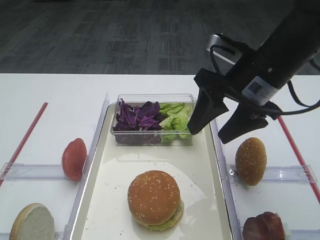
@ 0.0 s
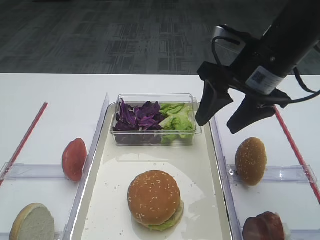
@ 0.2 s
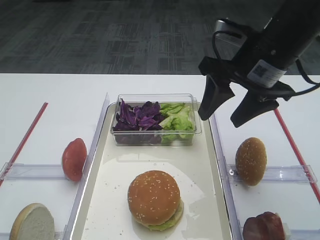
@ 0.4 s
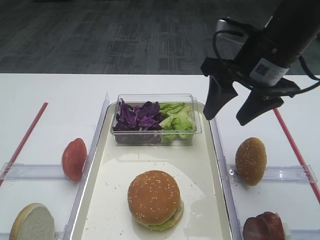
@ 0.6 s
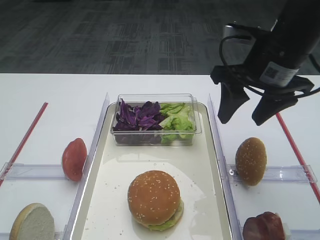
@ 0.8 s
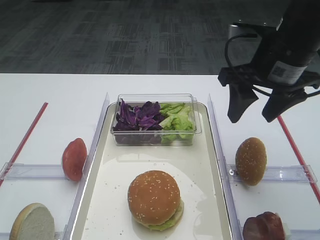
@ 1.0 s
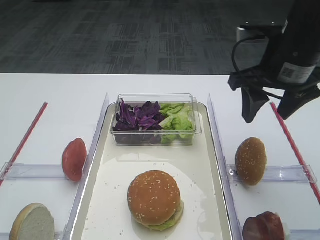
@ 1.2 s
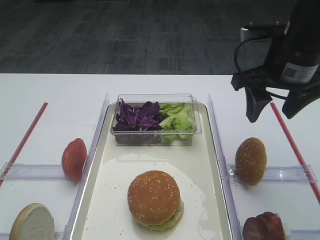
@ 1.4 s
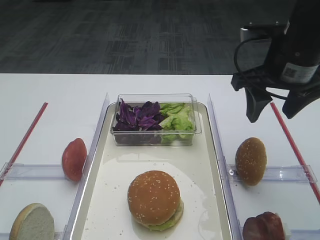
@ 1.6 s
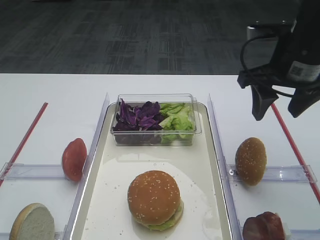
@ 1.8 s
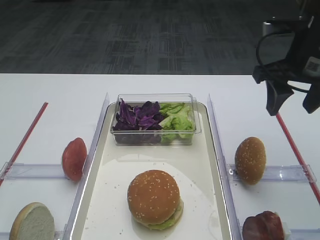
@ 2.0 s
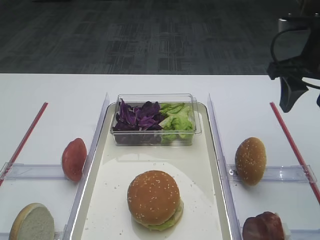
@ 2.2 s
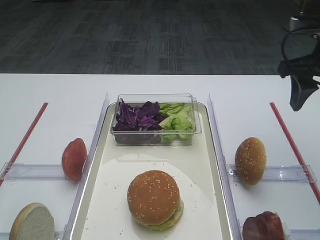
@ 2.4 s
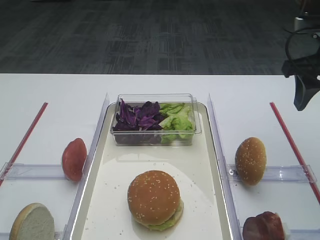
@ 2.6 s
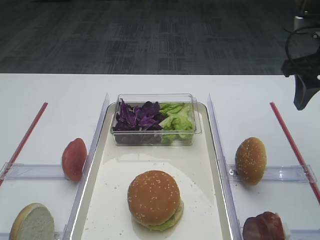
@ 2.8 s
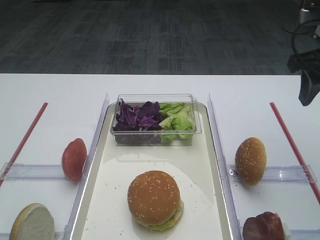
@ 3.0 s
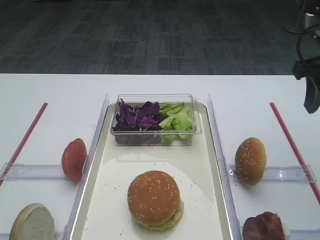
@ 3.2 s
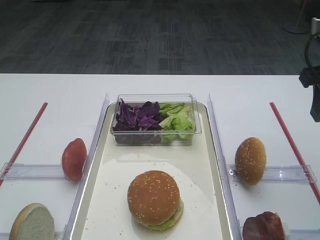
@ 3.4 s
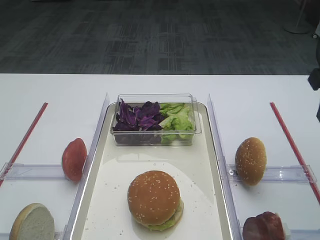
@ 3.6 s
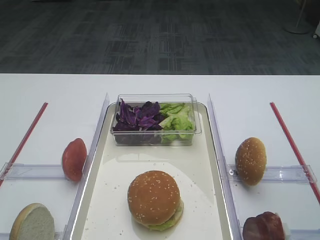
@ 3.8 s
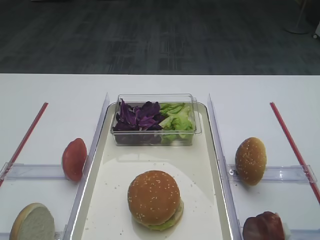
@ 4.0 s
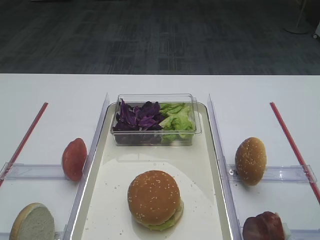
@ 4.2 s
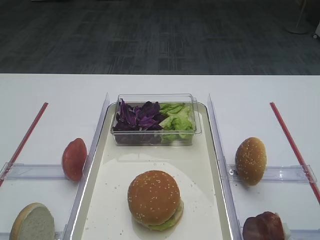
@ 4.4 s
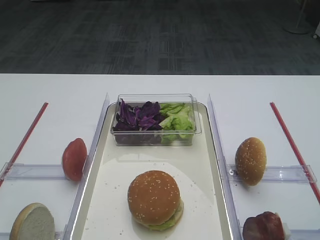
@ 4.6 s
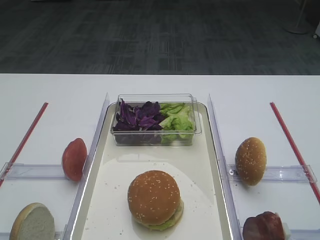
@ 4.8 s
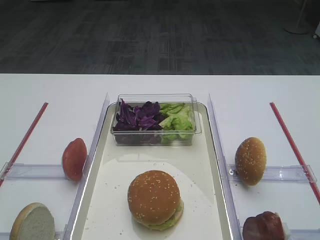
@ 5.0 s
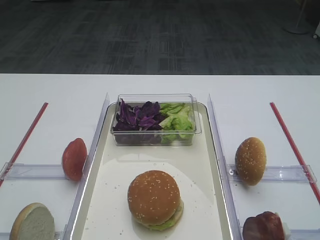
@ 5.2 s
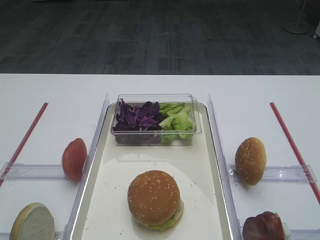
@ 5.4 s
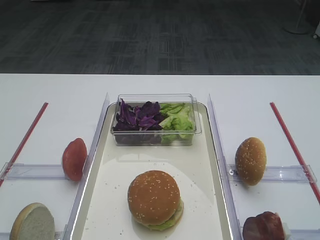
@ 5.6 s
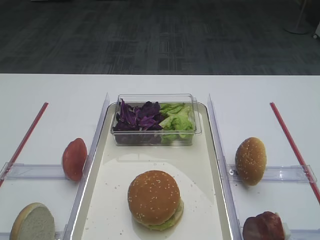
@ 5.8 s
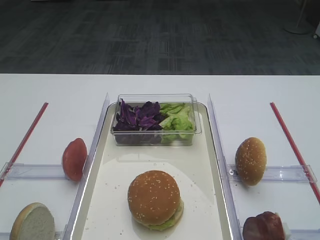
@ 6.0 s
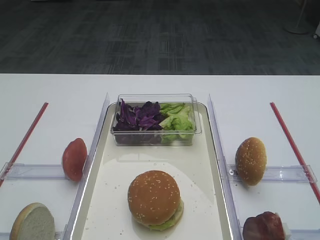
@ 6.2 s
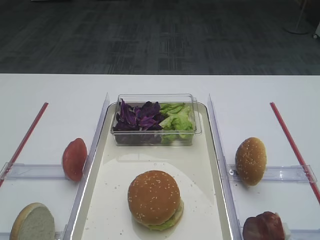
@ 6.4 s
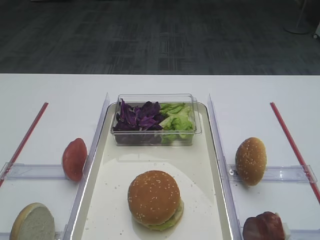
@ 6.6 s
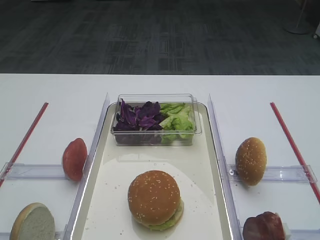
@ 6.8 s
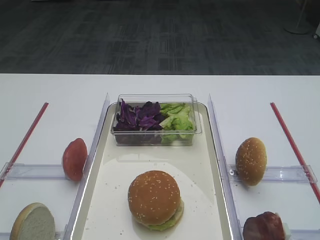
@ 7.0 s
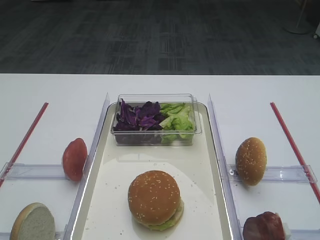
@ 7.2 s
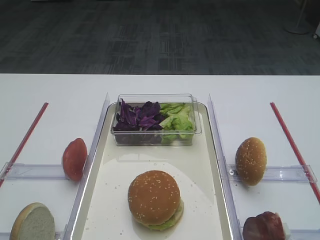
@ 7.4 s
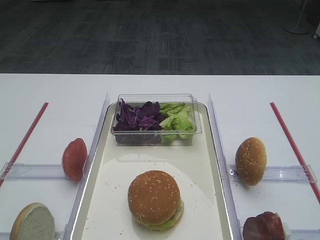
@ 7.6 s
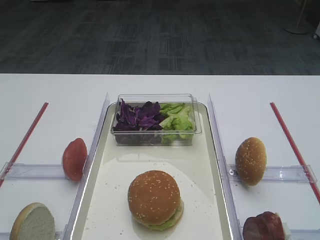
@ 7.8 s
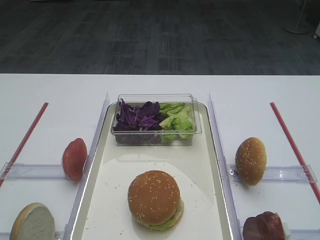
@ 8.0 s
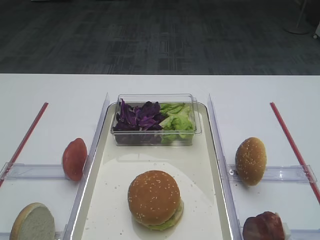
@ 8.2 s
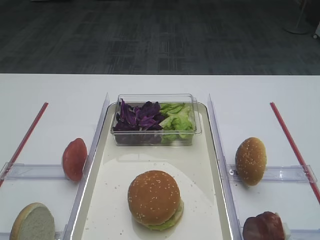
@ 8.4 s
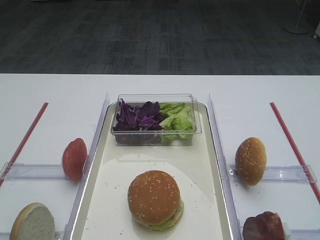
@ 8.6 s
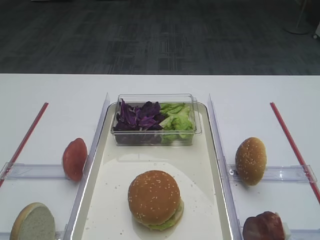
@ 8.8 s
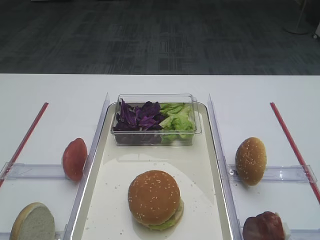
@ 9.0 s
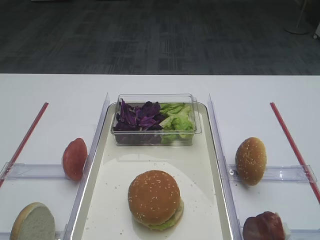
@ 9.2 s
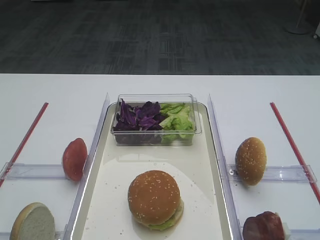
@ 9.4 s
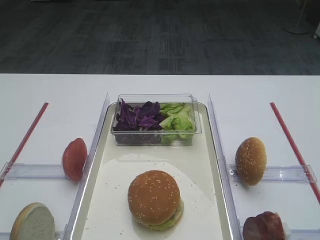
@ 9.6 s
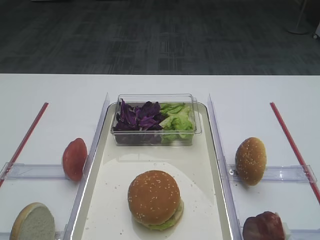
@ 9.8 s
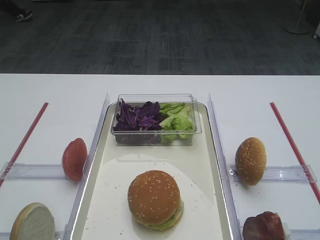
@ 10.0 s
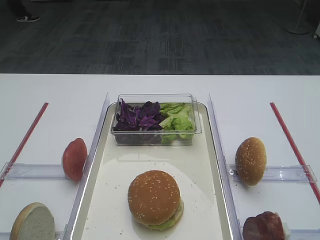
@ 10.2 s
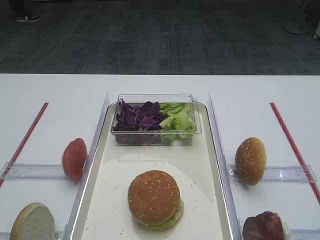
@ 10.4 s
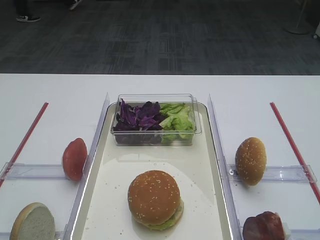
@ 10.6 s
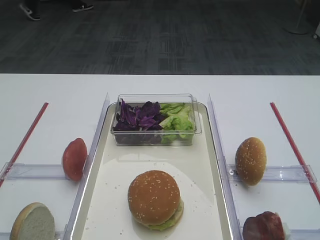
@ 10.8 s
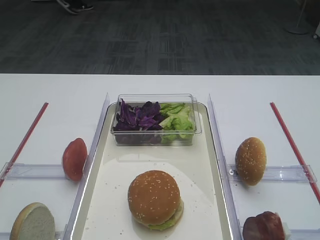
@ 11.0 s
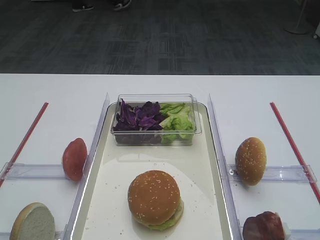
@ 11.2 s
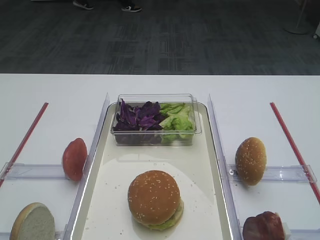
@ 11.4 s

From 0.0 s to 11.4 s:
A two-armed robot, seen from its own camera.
From 1.4 s to 2.8 s: The right gripper travels to the right by approximately 10 cm.
From 2.8 s to 4.2 s: The right gripper travels backward by about 15 cm.
From 7.2 s to 11.4 s: Neither gripper changes place.

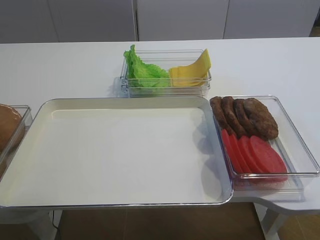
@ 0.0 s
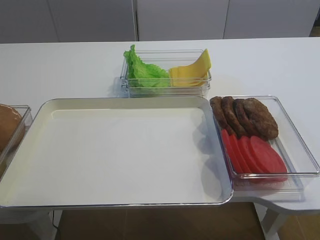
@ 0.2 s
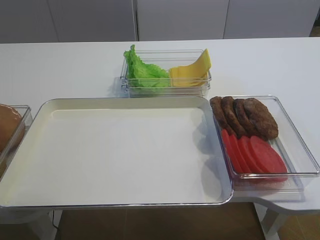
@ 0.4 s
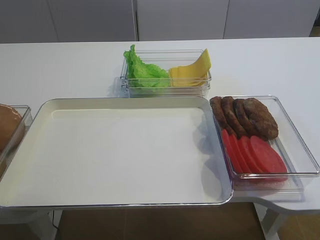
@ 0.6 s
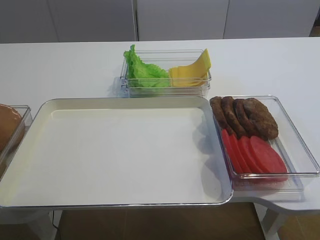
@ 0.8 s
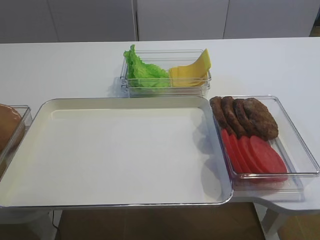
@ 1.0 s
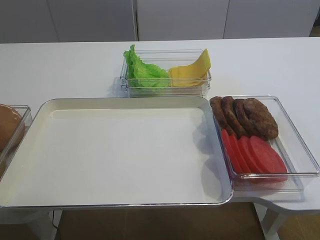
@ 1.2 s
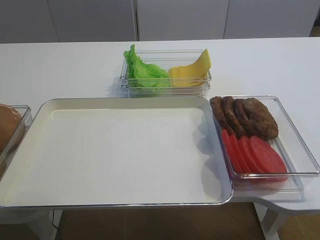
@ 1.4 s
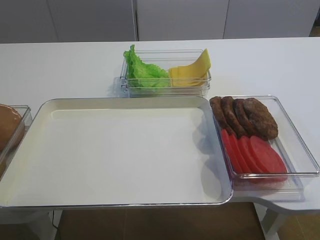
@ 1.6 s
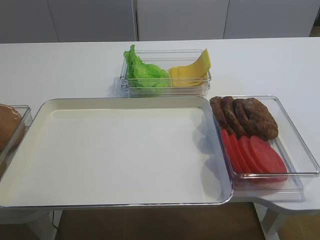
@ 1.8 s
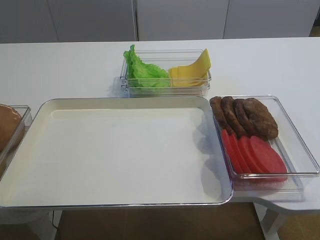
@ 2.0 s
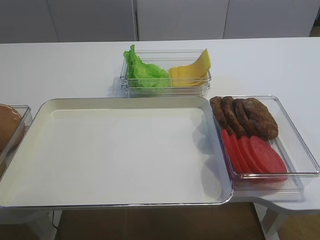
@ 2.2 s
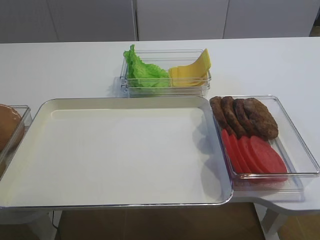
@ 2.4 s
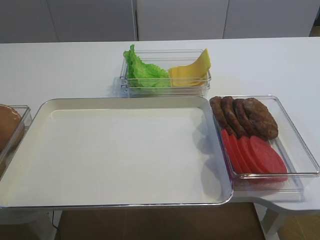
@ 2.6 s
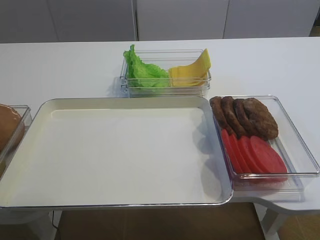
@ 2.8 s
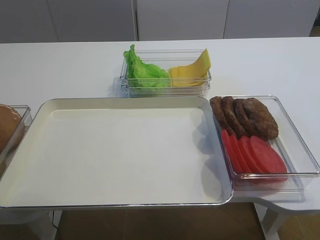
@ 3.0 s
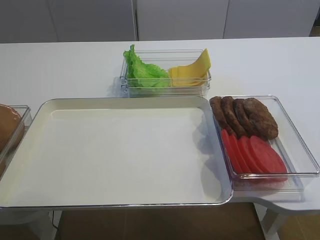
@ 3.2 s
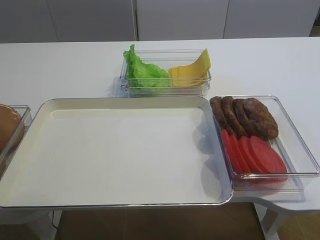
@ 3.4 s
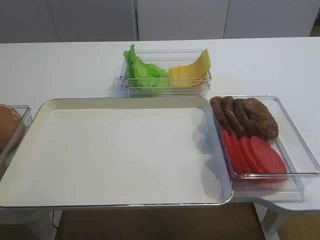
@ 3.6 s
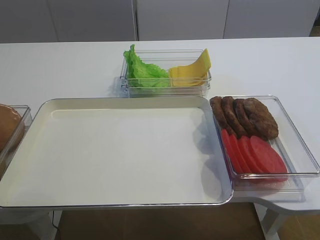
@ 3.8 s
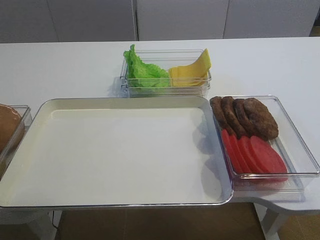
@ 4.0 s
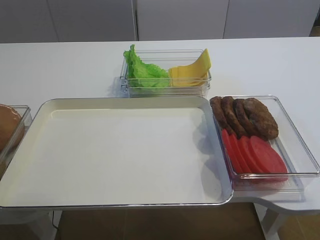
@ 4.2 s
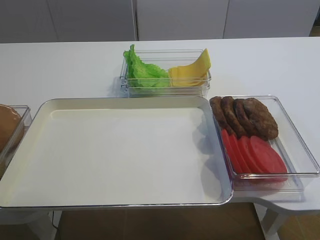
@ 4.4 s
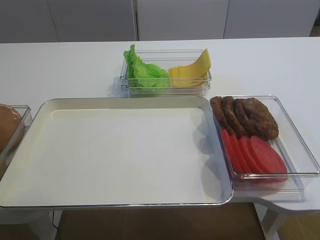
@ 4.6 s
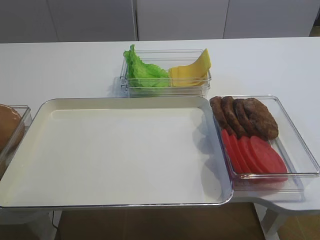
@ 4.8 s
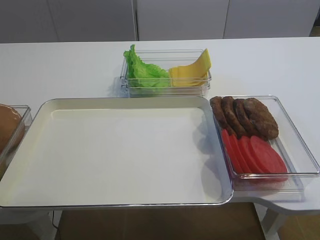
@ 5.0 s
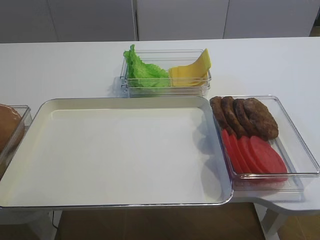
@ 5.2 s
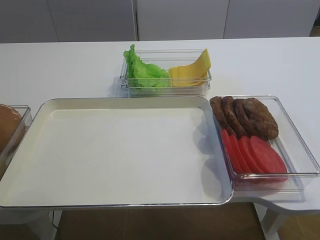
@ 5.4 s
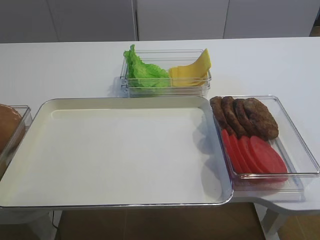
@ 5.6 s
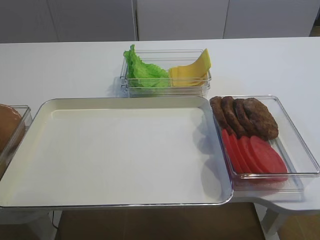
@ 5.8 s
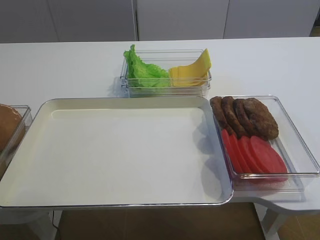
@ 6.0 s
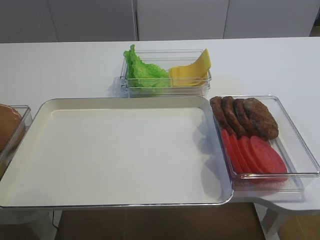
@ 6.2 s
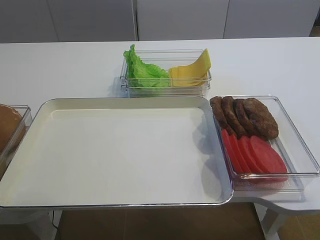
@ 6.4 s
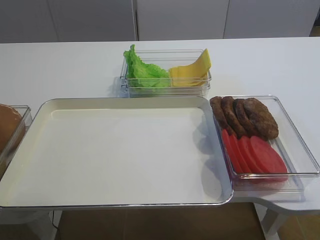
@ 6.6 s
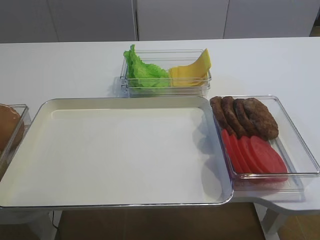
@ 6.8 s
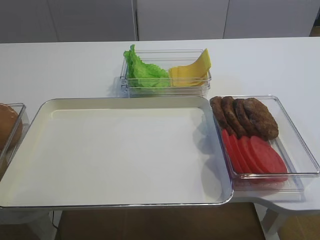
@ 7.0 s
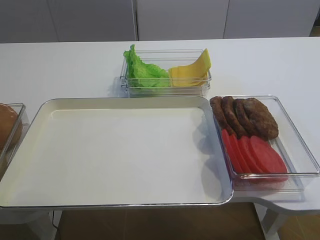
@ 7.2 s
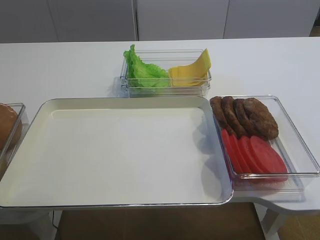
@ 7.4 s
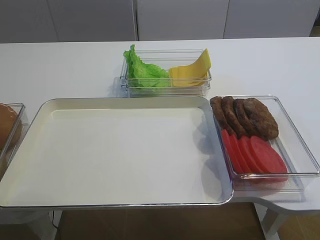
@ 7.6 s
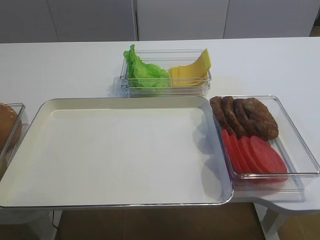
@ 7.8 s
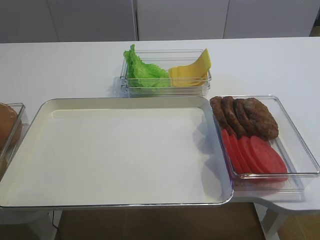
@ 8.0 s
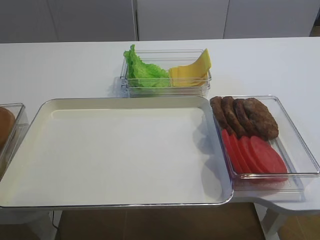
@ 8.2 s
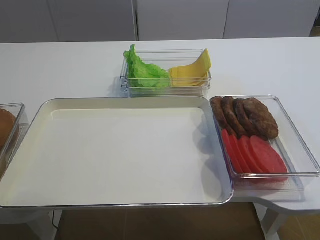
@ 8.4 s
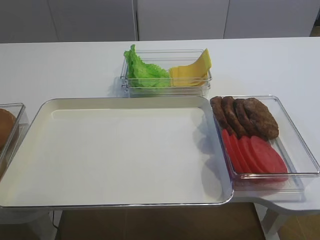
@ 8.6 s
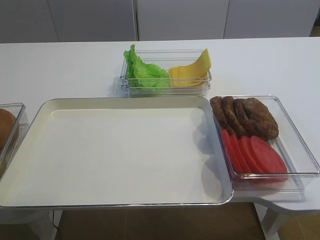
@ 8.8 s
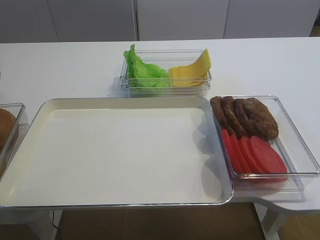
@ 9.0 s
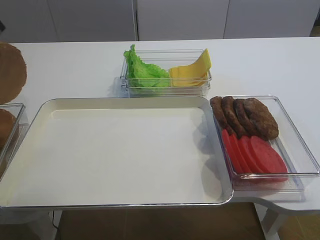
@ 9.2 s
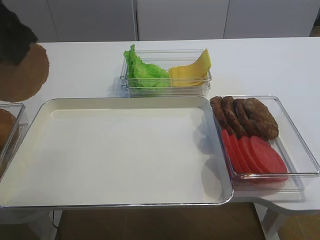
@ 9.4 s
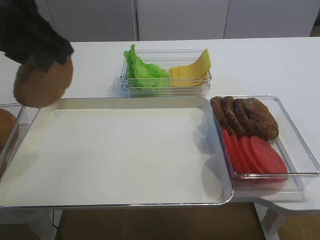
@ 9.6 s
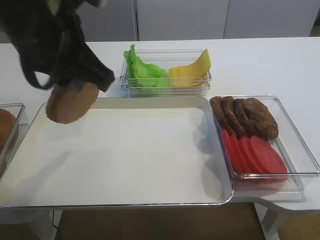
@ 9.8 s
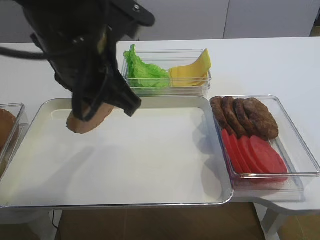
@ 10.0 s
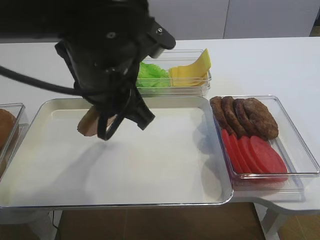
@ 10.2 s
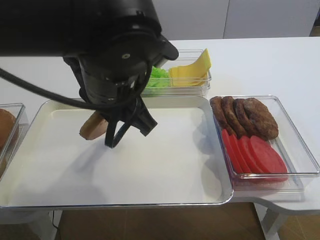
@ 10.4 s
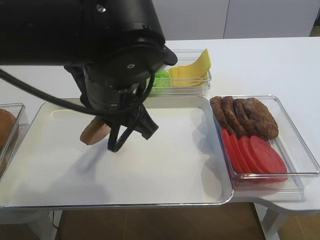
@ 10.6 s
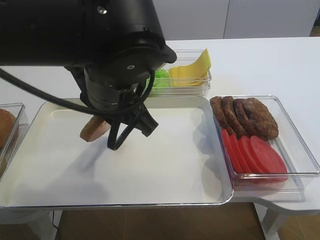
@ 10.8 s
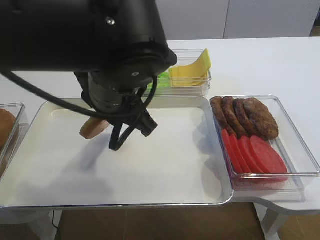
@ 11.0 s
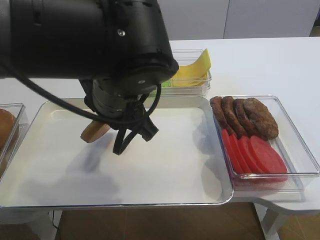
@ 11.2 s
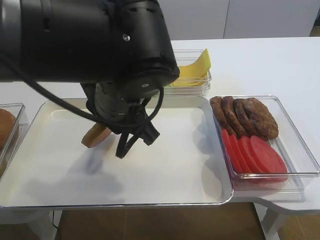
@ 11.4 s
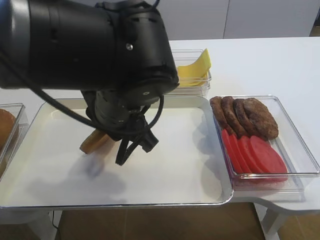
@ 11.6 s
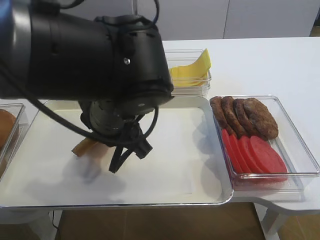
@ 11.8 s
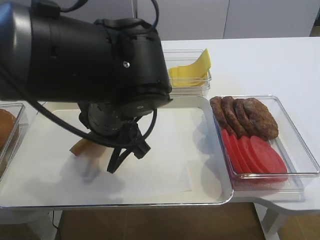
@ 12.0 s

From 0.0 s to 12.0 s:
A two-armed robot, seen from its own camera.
From 9.0 s to 10.4 s: The left gripper goes some 25 cm to the right.
From 10.4 s to 12.0 s: The left gripper travels downward by roughly 5 cm.
